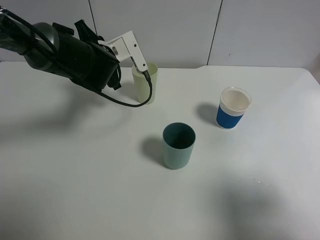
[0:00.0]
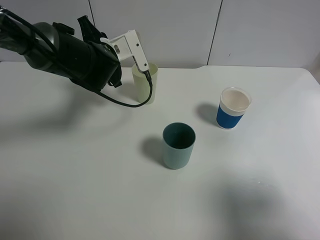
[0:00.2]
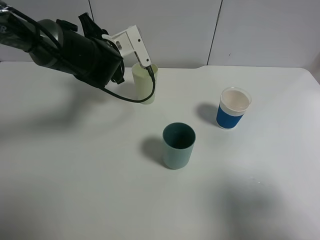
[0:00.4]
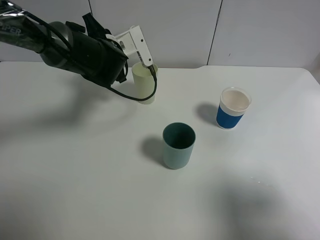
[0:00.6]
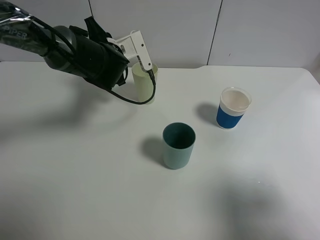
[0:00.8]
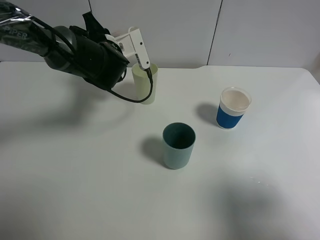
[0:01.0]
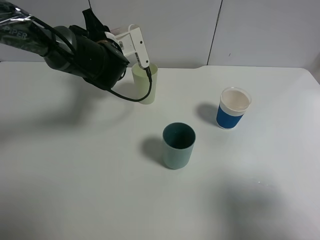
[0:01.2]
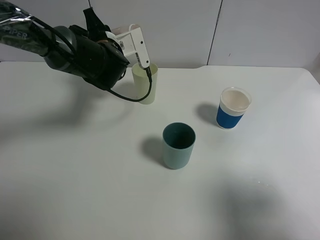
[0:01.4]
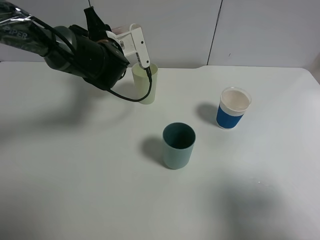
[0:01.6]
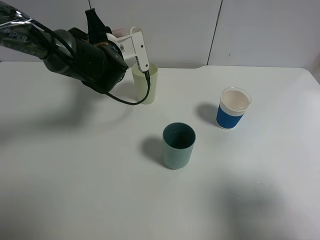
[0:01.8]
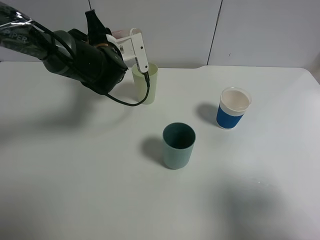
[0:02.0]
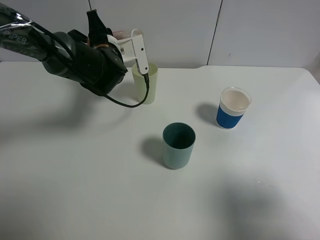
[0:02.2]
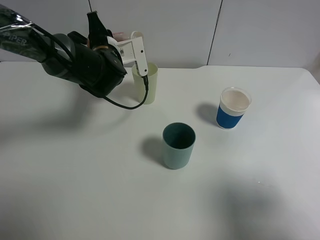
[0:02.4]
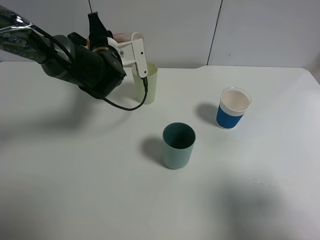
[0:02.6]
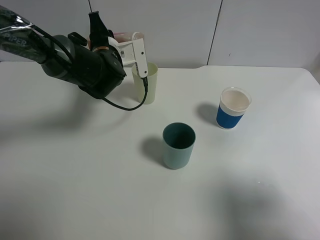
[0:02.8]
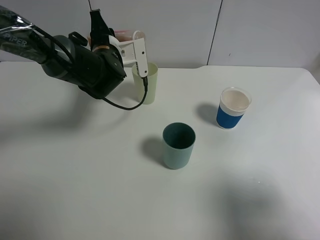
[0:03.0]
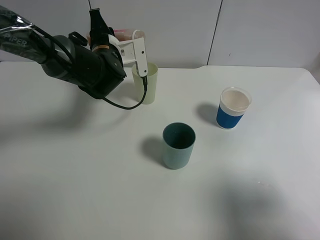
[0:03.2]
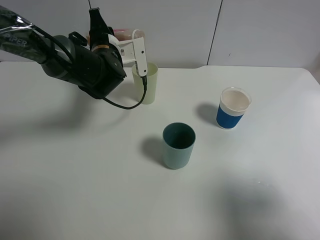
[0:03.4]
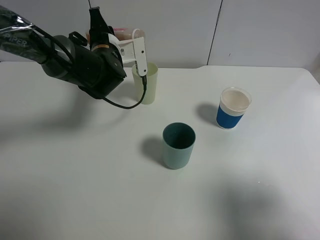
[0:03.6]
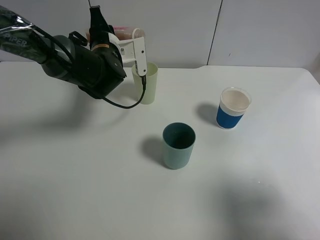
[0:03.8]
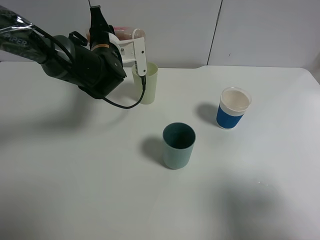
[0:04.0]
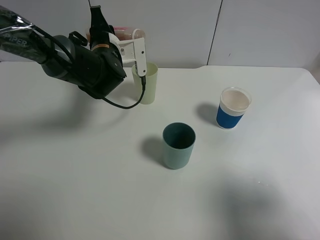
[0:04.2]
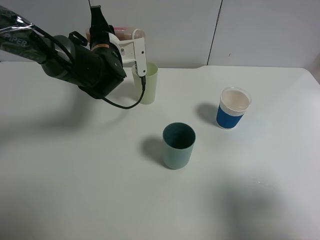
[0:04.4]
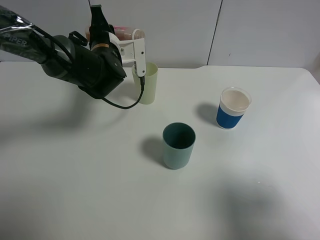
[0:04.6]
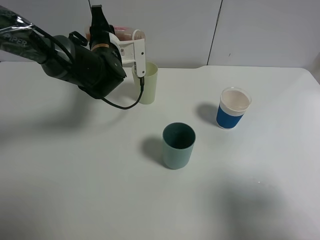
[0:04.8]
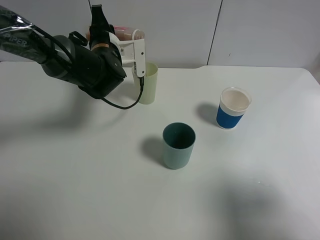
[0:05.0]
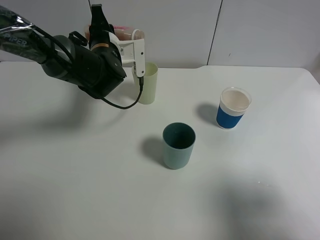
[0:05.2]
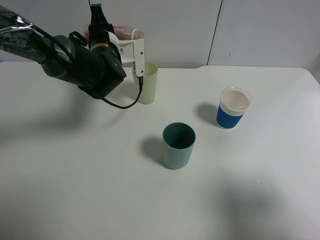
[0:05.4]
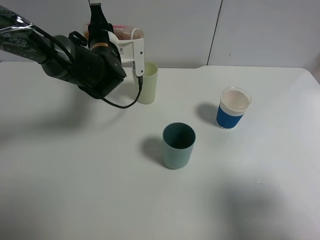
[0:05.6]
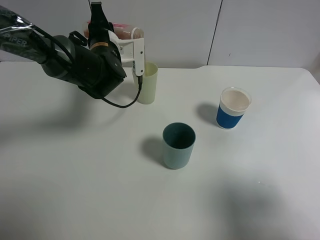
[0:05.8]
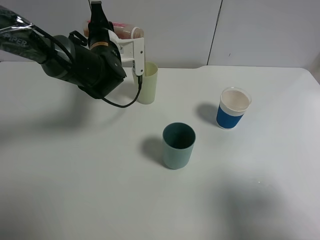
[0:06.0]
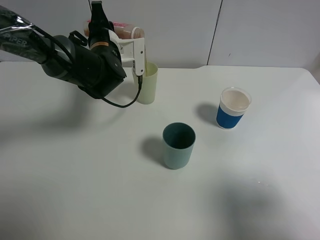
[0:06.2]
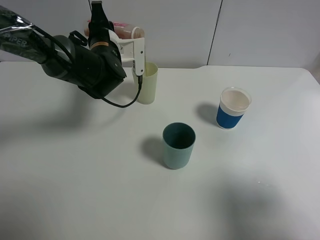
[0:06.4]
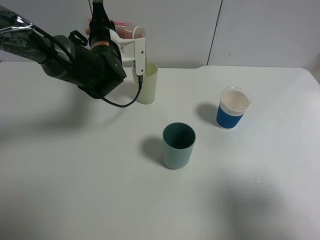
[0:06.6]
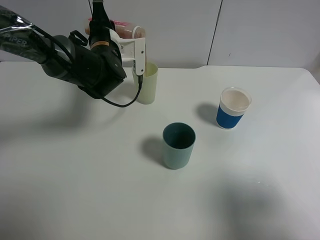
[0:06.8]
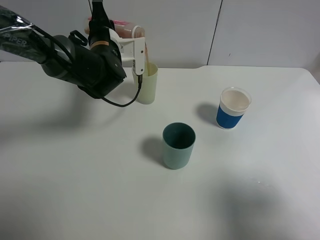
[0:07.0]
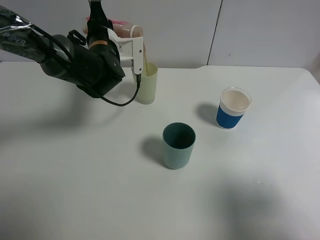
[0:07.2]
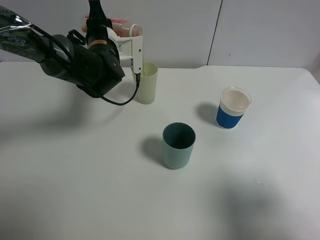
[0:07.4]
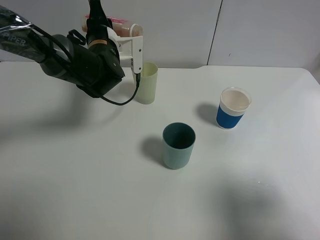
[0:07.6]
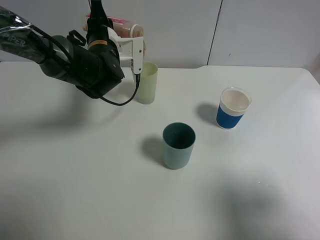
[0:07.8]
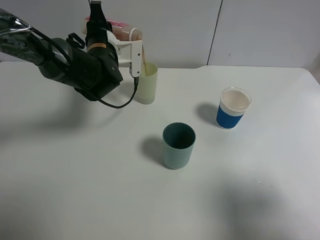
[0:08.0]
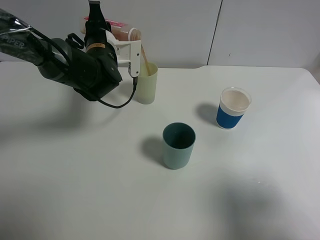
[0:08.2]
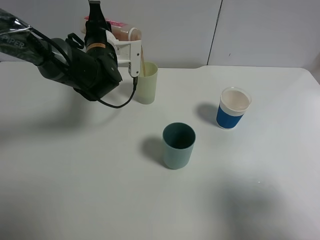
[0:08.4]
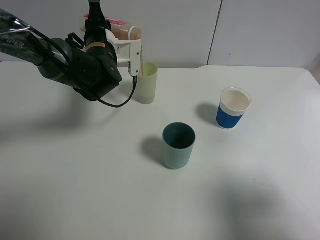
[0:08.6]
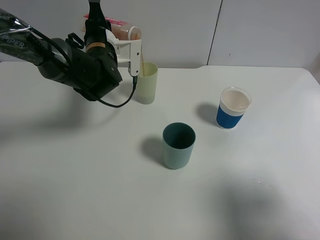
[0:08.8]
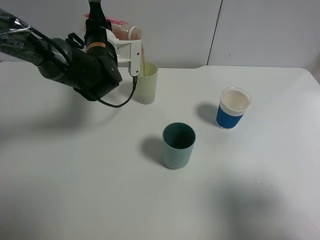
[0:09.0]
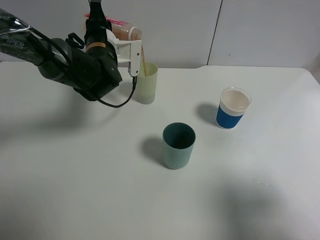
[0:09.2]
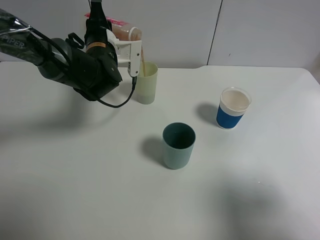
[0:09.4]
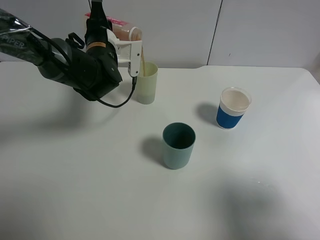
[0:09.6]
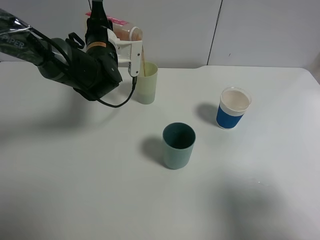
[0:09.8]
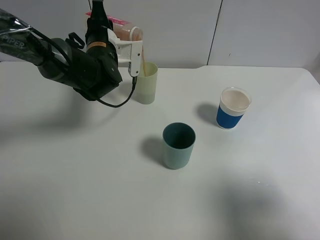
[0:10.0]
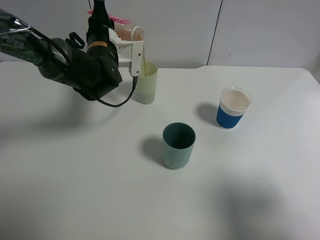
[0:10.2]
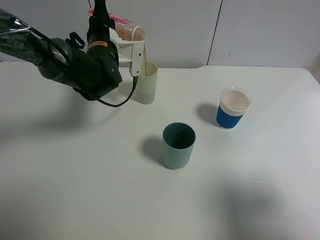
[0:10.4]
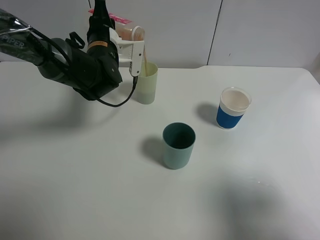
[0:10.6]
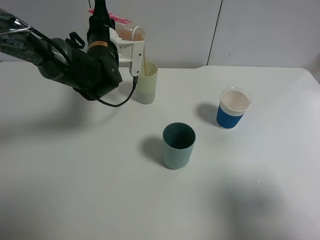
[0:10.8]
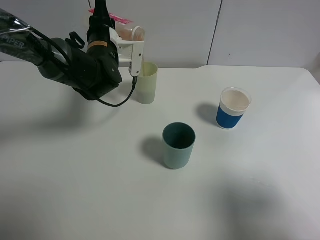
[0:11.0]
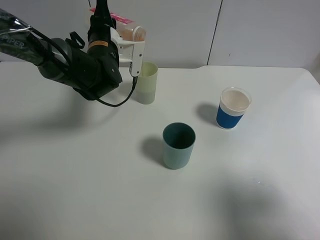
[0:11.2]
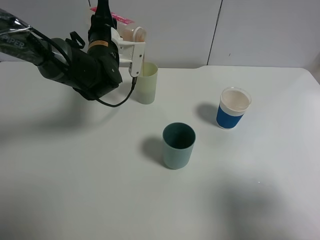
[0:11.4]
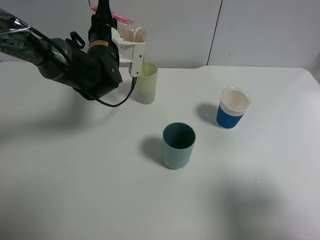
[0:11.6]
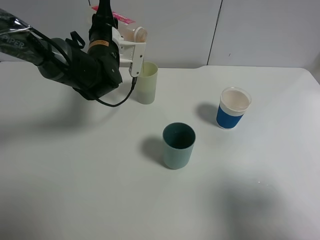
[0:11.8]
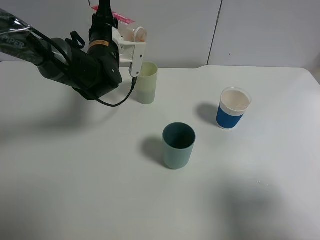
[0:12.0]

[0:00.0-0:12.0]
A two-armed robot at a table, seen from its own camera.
Task of the whole recording: use a gripper to hold the bottle of the drink and pour it into a random cup.
0:00.0 to 0:03.0: The grippers move only a little.
0:03.0 to 0:04.4: The two grippers keep their place.
0:04.4 to 0:06.0: Neither gripper changes place.
0:06.0 to 0:07.6: Both grippers stay about where they are.
0:07.6 to 0:09.0: Both grippers stay put.
0:09.0 to 0:10.4: Both grippers stay put.
0:10.4 to 0:12.0: The two grippers keep their place.

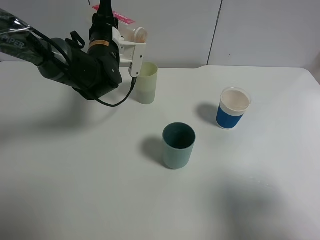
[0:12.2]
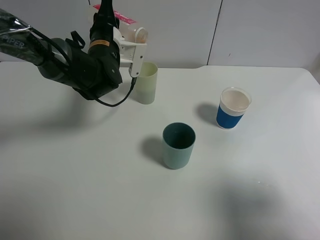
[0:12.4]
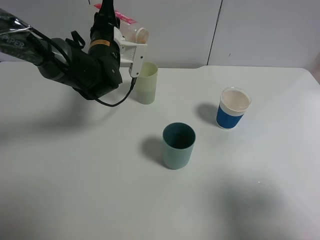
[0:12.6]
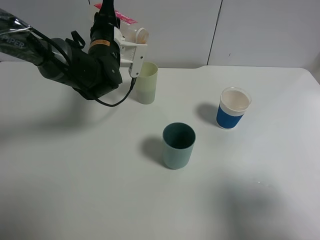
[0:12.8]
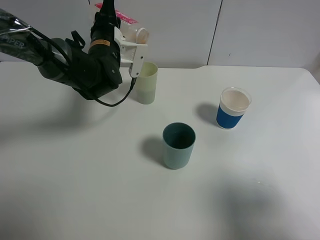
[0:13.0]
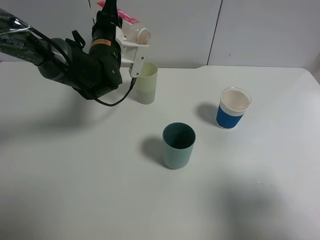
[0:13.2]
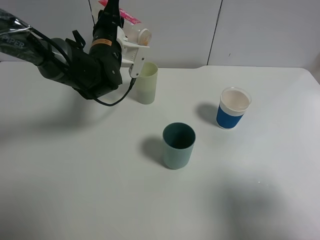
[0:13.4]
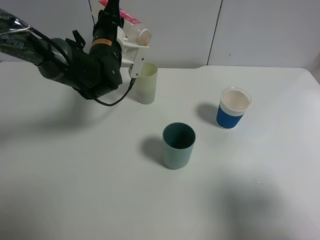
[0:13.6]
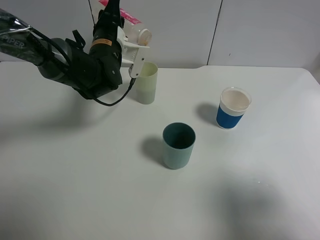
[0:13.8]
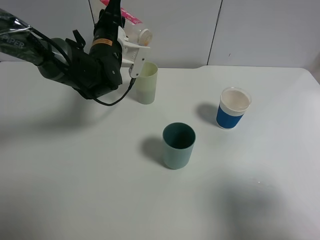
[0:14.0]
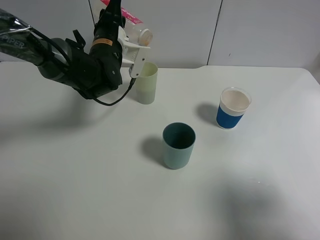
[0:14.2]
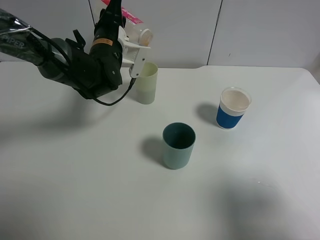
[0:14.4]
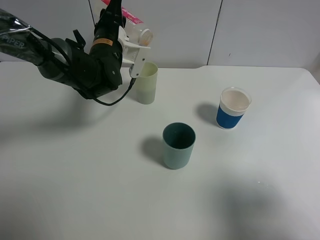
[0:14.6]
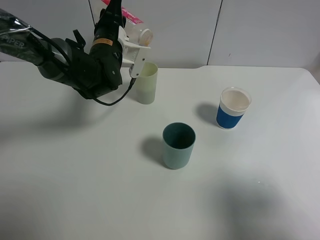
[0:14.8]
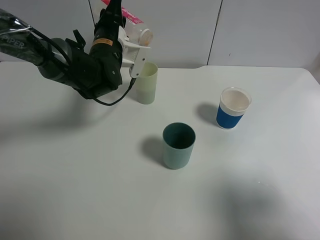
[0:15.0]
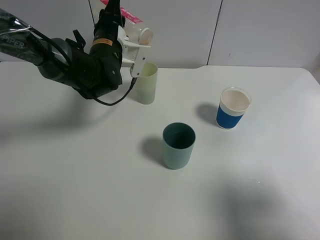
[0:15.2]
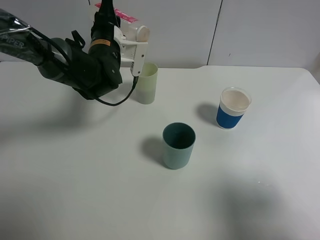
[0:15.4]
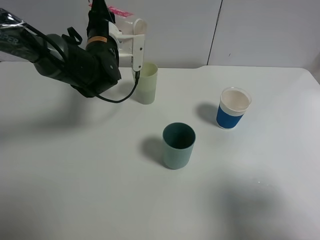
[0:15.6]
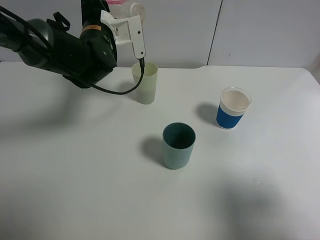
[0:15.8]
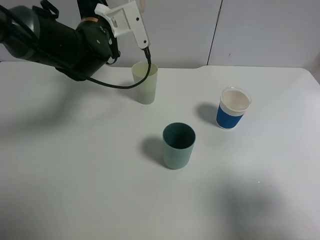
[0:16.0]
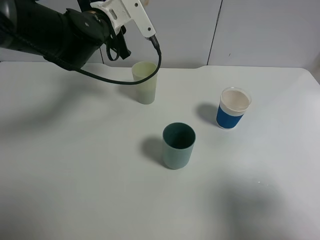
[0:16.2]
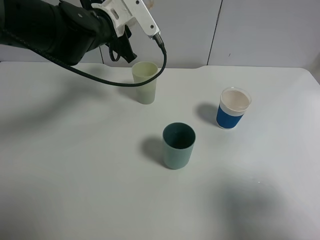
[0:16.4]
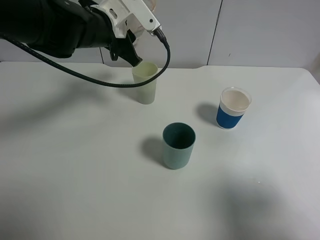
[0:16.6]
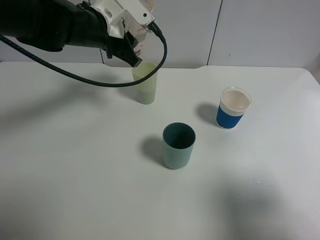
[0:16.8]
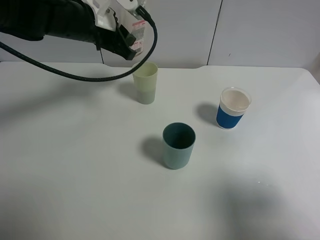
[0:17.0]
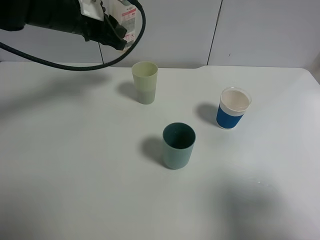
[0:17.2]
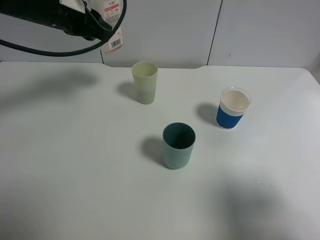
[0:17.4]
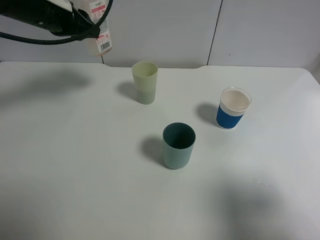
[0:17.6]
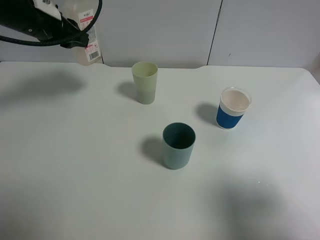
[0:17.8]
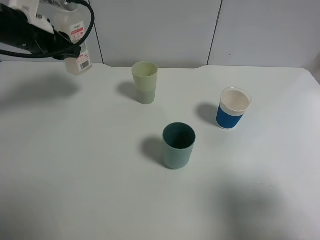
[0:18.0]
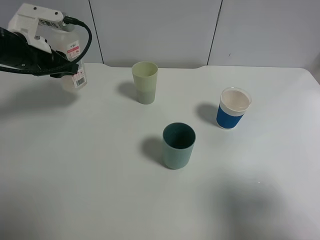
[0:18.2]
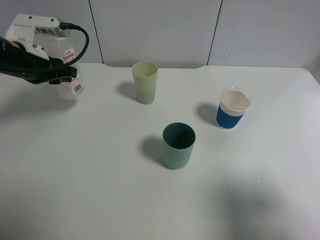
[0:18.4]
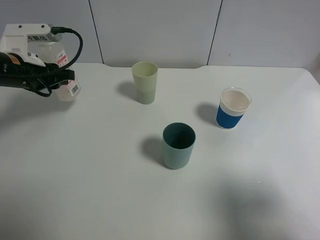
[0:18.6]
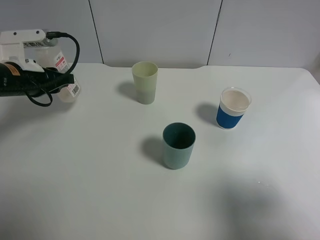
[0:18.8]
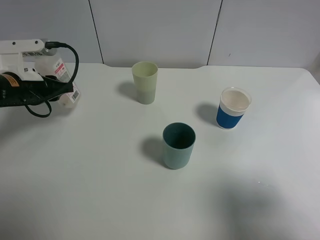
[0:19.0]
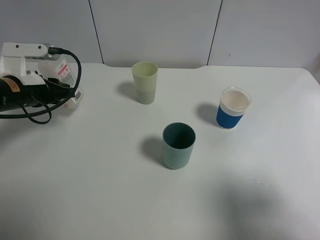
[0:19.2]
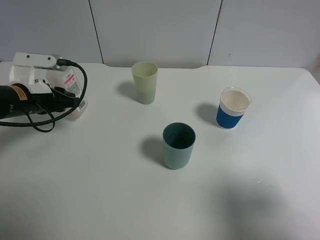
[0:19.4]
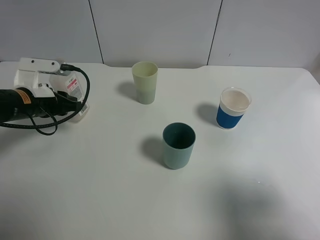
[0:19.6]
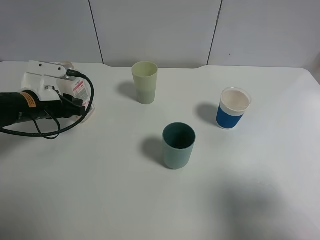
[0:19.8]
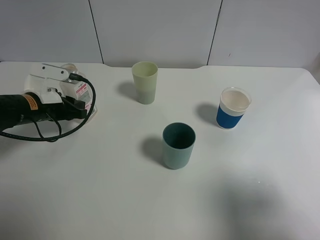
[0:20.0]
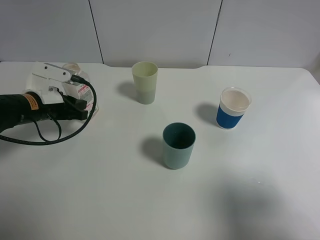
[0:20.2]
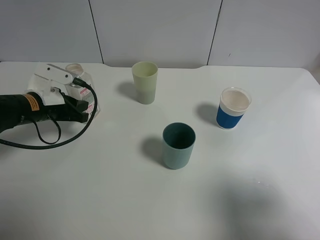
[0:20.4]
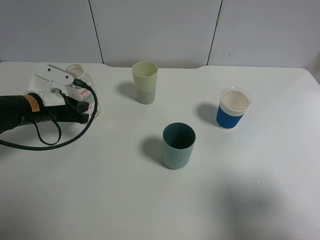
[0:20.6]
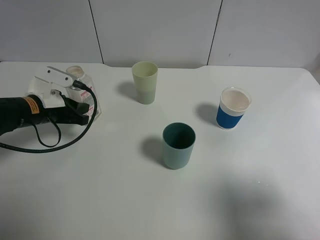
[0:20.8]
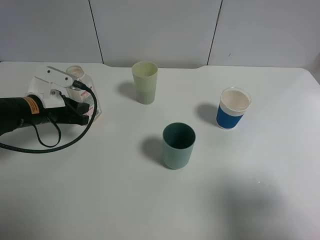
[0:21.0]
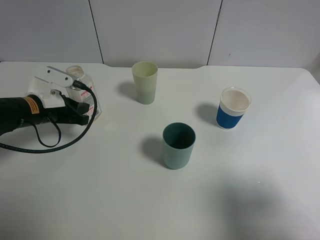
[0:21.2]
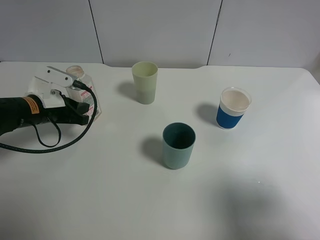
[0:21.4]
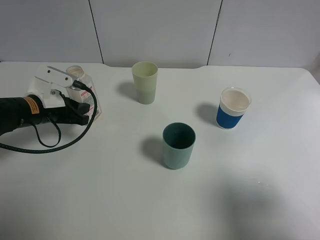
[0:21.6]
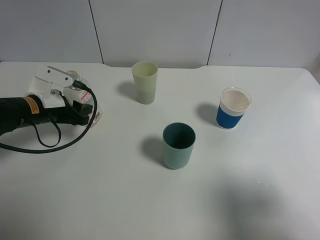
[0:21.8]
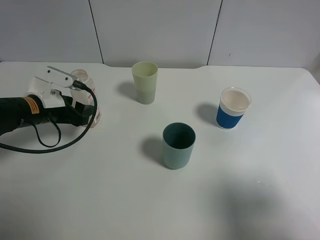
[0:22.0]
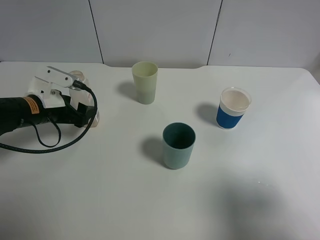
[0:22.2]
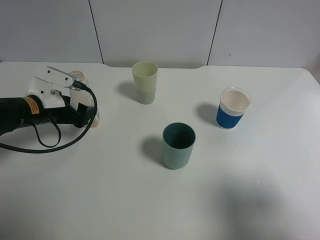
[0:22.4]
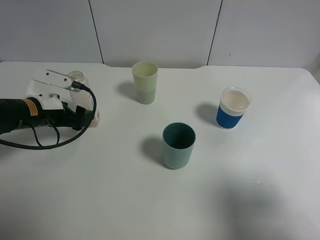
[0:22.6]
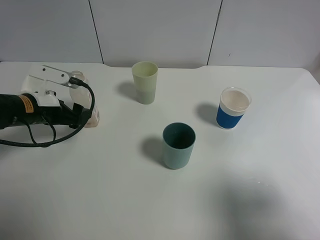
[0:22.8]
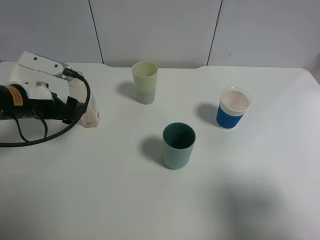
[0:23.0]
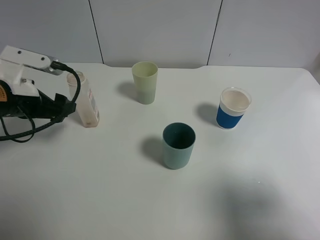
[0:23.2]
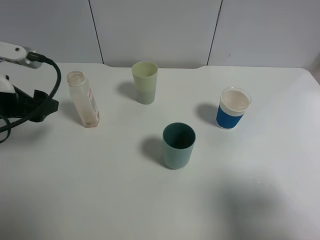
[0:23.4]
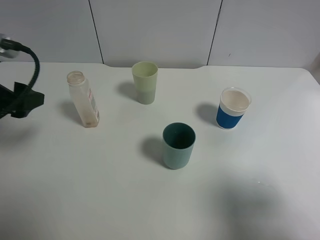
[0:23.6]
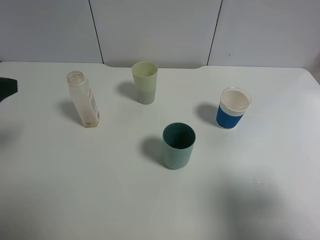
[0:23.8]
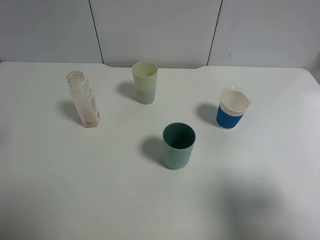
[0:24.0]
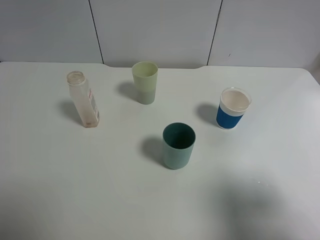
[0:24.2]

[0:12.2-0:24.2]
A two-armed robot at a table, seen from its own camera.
Task of the whole recording: use a gripper to hold the bottle of the drink and pour it into a random cup.
Step, 0:12.2 to 0:15.8: Pour the cranberry juice into the White Plastic Cup with the left gripper.
Step, 0:16.0 to 0:22.8: Place the cranberry juice bottle on the table with the left gripper.
0:12.2 to 0:13.8: The grippers make only small movements.
0:13.8 to 0:15.2: Both grippers stay put.
0:15.2 to 0:16.6: The left gripper changes place by about 5 cm.
0:16.6 to 0:18.2: The left gripper goes roughly 15 cm to the left.
0:18.2 to 0:19.8: The left gripper is displaced downward by some 10 cm.
0:19.8 to 0:21.2: There are only small adjustments of the grippers.
0:21.2 to 0:22.6: The left gripper opens up.
0:22.6 to 0:24.2: The left gripper travels upward and backward by roughly 30 cm.
